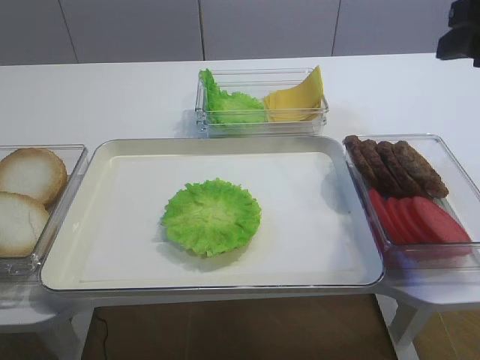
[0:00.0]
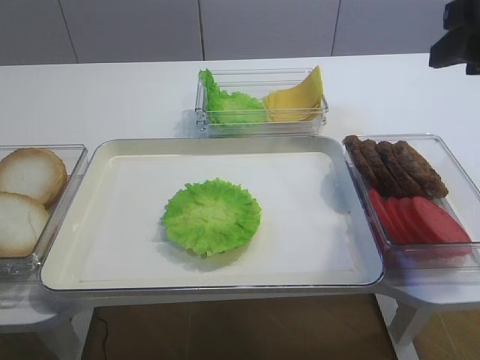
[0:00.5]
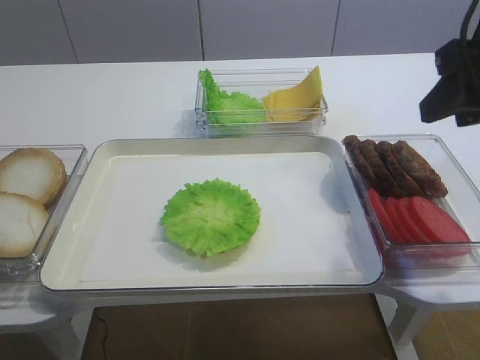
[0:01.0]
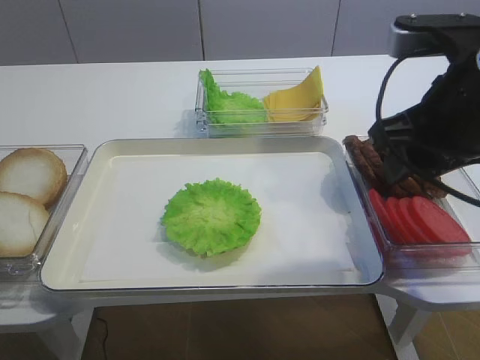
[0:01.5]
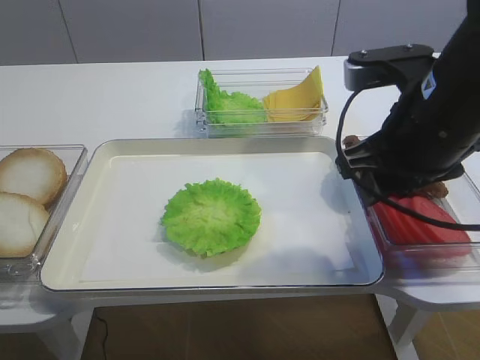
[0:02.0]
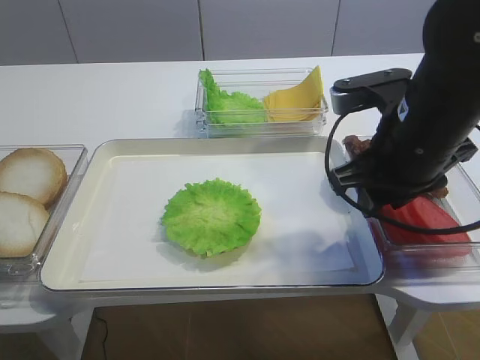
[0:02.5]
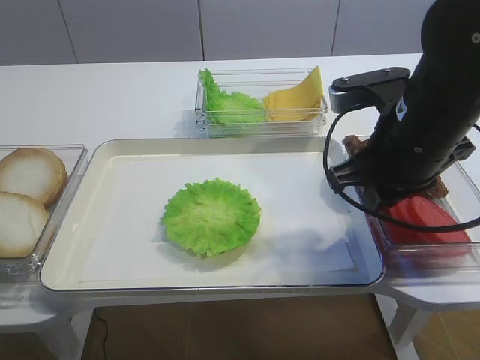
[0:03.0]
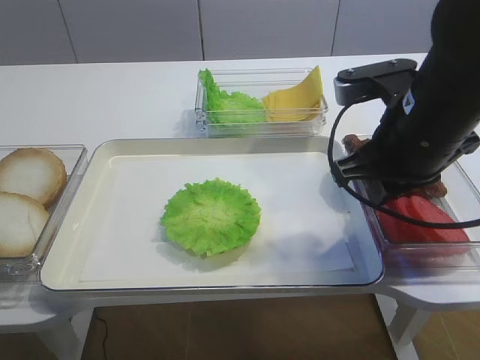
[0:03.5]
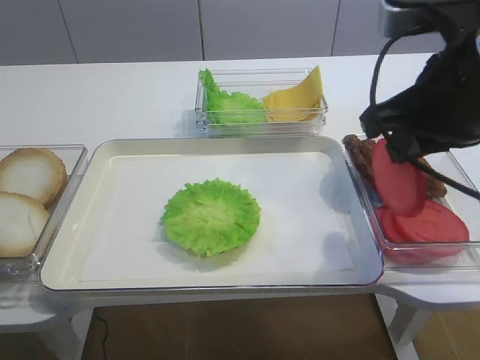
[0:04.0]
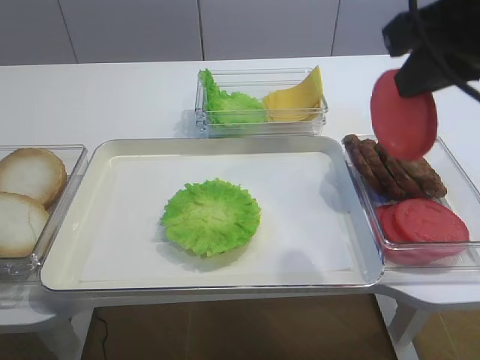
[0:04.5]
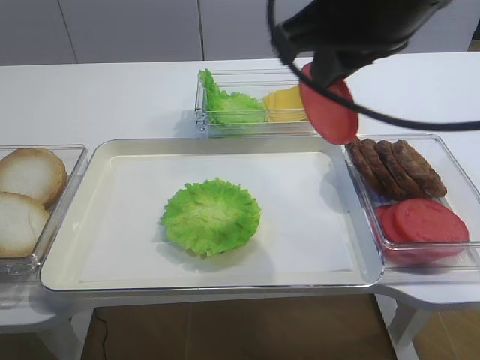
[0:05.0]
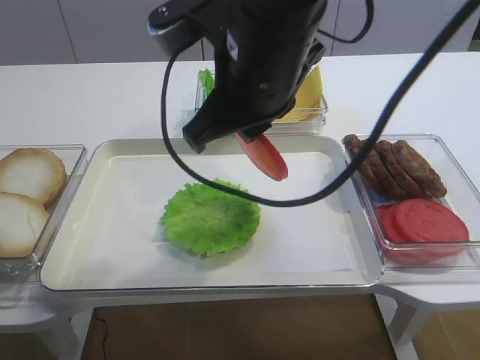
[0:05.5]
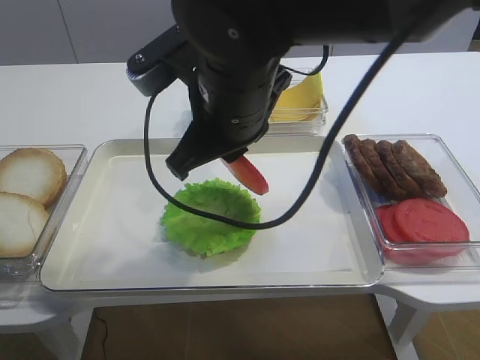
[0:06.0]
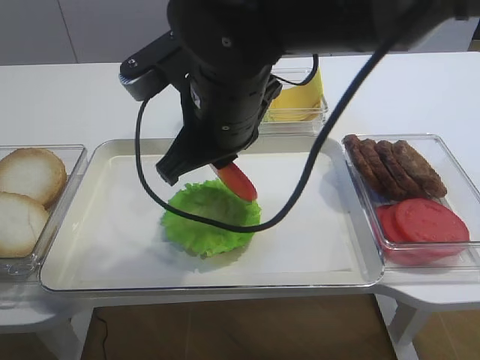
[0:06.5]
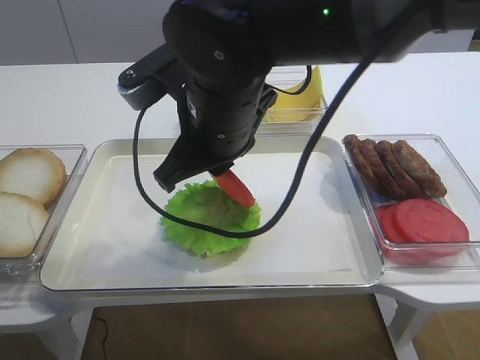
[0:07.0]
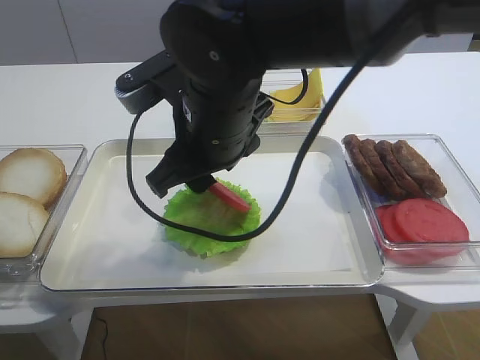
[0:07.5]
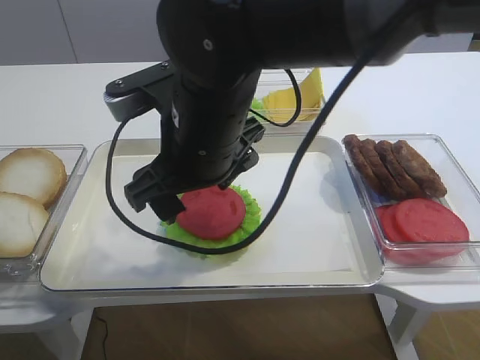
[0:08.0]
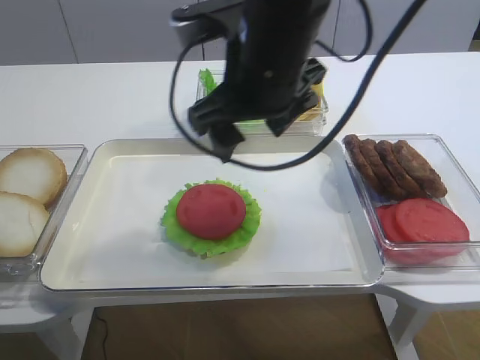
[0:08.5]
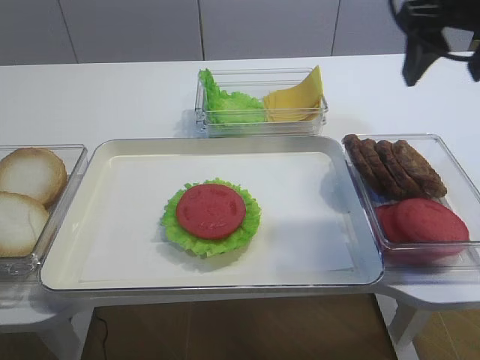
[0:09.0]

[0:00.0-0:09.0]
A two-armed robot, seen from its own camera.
Step, 0:00.0 to 0:03.5: Pick up the tomato slice with the right gripper.
Step, 0:04.5 to 0:07.5: Place the tomato slice on the lettuce leaf with the right gripper.
0:00.0 to 0:02.0: The right gripper shifts some 10 cm to the left and downward.
0:02.0 to 0:04.5: The right gripper is displaced upward by roughly 10 cm, and closes up.
0:04.5 to 0:07.0: The right gripper is displaced to the left and downward by some 20 cm.
0:07.0 to 0:09.0: The right gripper travels to the right and upward by approximately 25 cm, and opens.

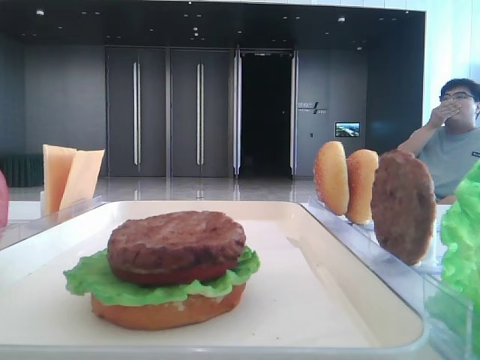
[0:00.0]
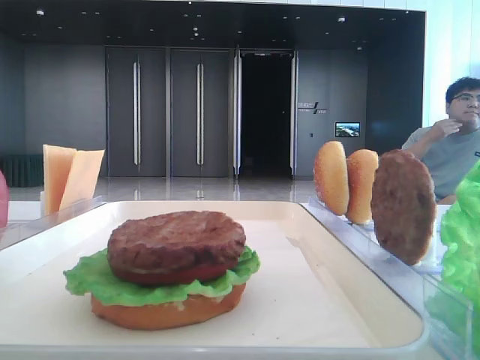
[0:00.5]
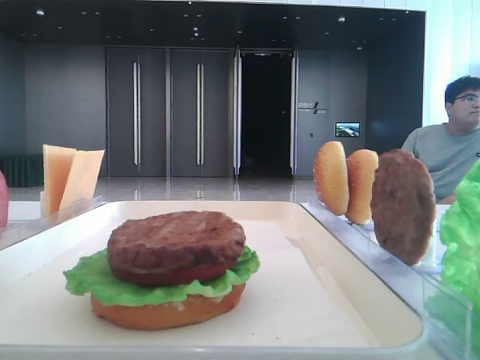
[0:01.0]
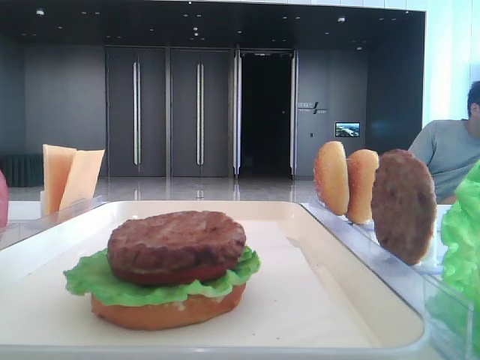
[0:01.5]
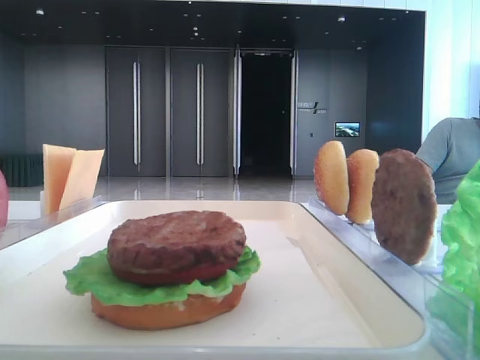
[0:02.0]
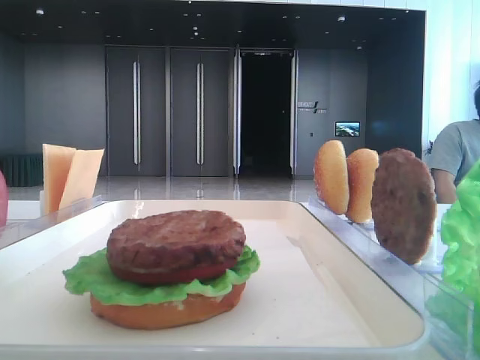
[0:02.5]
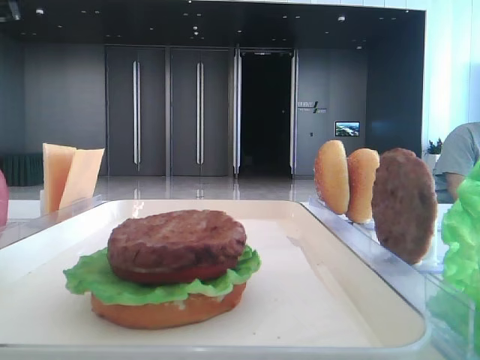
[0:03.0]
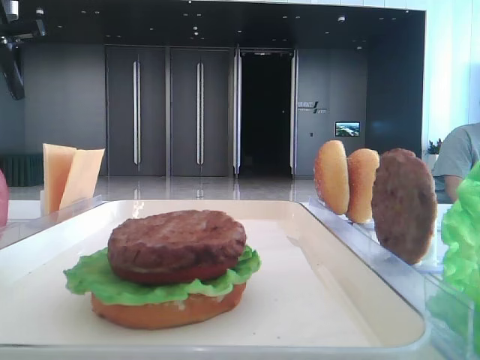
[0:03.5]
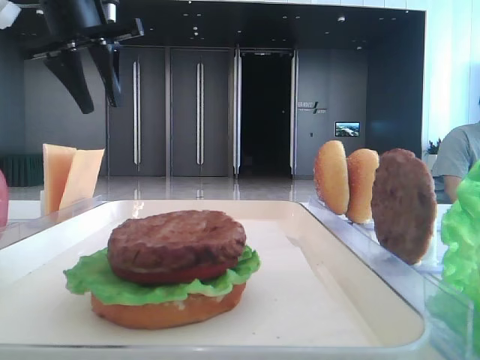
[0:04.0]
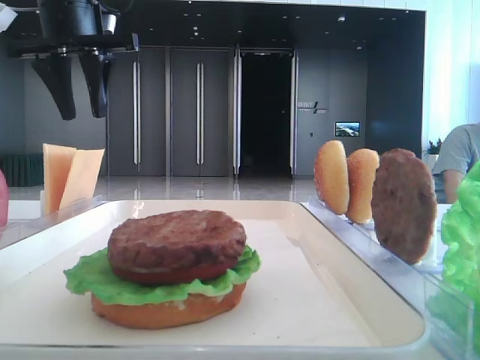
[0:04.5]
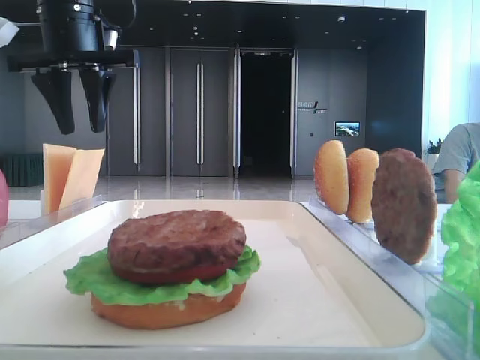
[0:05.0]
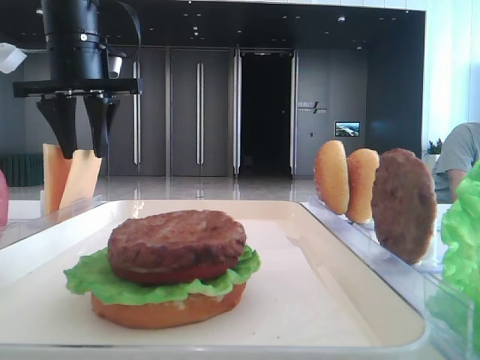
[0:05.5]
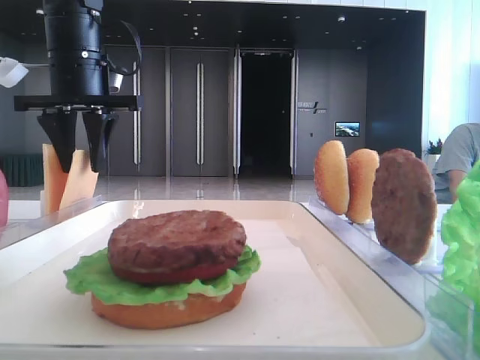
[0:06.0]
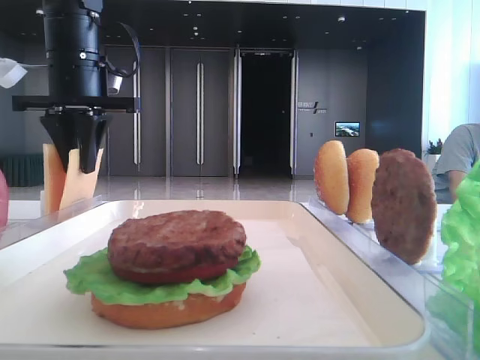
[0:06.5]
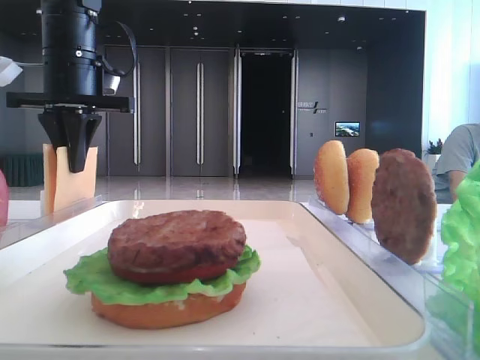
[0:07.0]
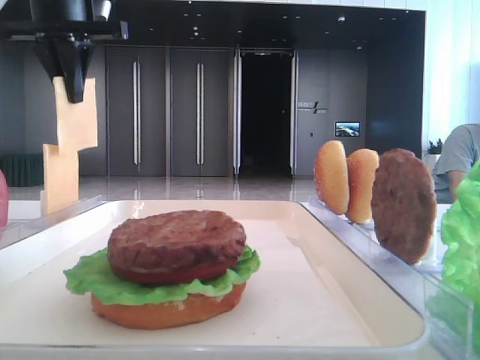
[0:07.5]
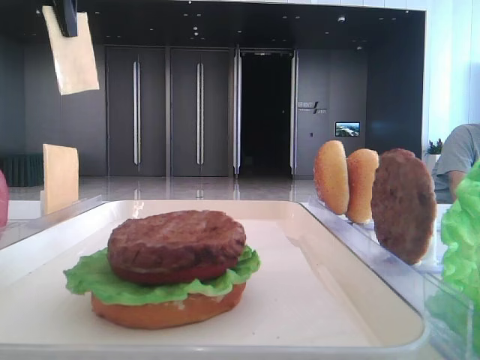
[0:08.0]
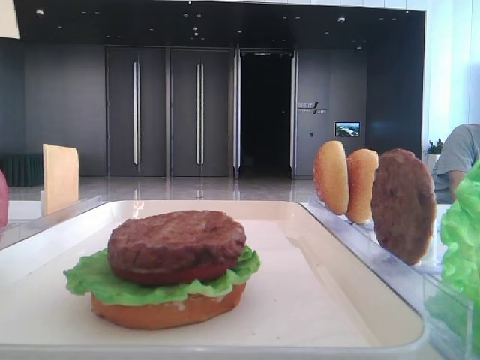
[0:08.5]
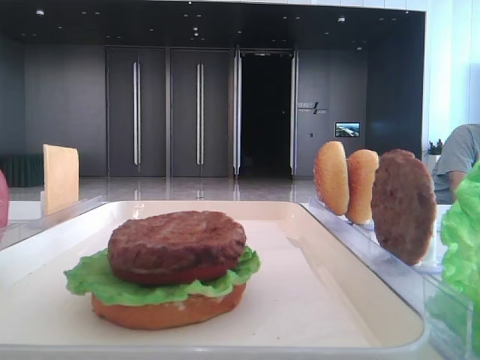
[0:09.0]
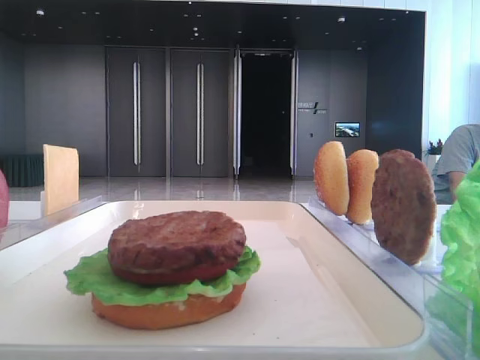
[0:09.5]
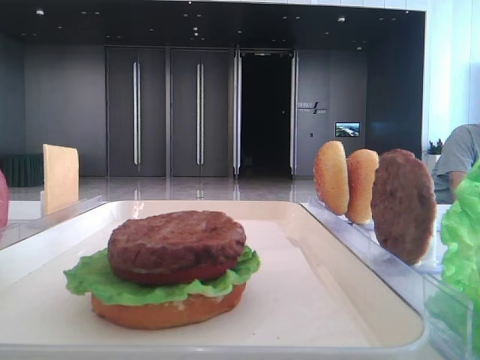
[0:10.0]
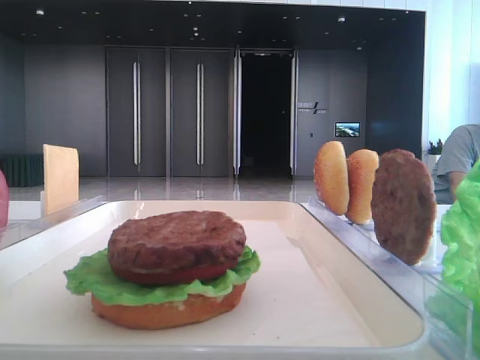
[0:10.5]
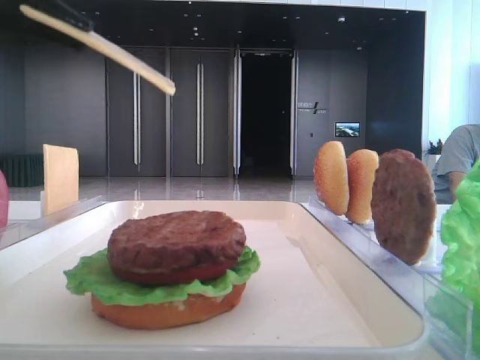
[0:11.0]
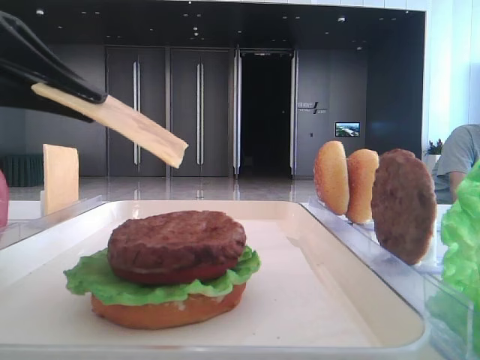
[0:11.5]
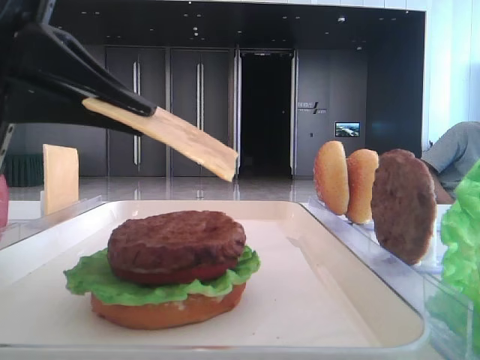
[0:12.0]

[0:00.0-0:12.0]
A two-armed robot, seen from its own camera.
Step, 0:00.0 to 0:06.5: Pick up the cheese slice with the left hand.
0:02.0 to 0:04.0: The left gripper moves forward, approximately 30 cm.
0:04.0 to 0:06.0: The left gripper shifts some 5 cm downward.
0:06.0 to 0:08.0: The left gripper heads upward and backward, covering roughly 15 cm, and closes its fingers.
0:08.0 to 0:10.0: The left gripper moves backward, about 20 cm.
0:10.0 to 0:12.0: The left gripper shifts about 15 cm downward.

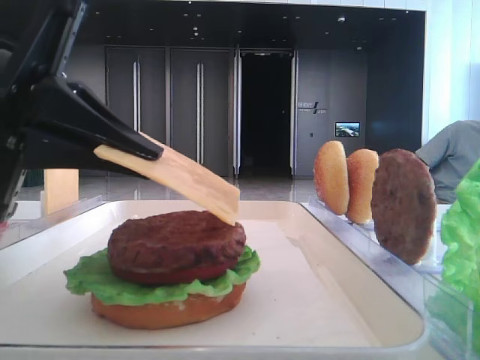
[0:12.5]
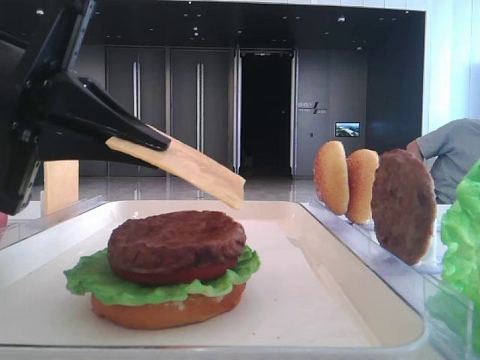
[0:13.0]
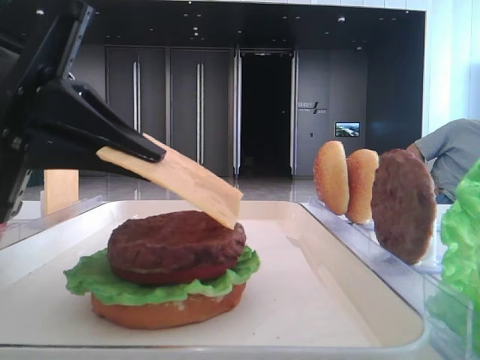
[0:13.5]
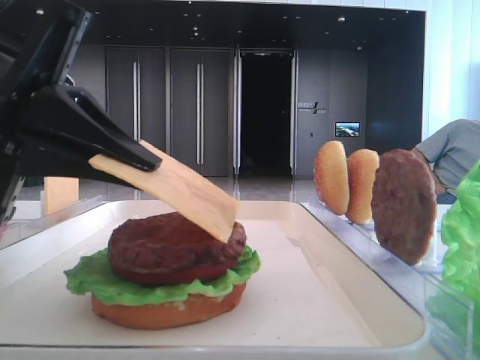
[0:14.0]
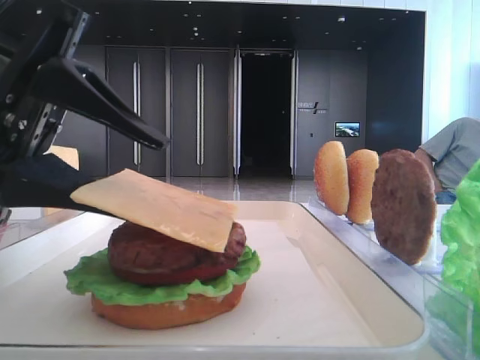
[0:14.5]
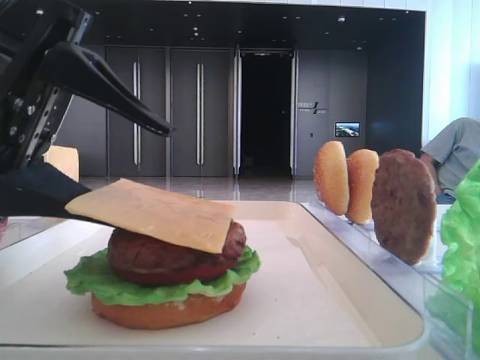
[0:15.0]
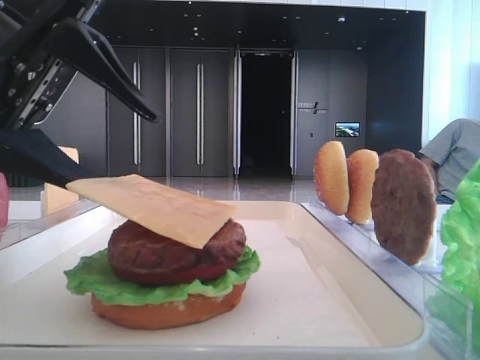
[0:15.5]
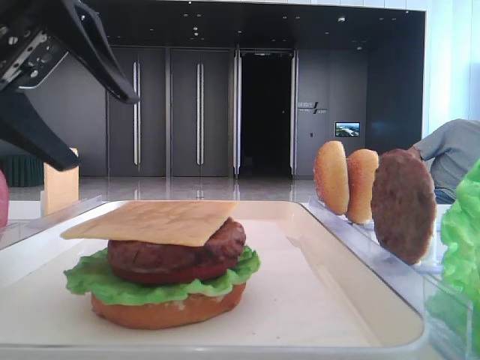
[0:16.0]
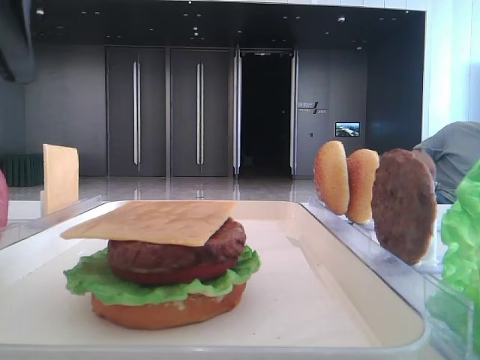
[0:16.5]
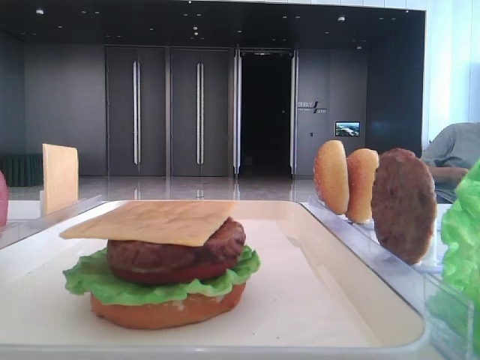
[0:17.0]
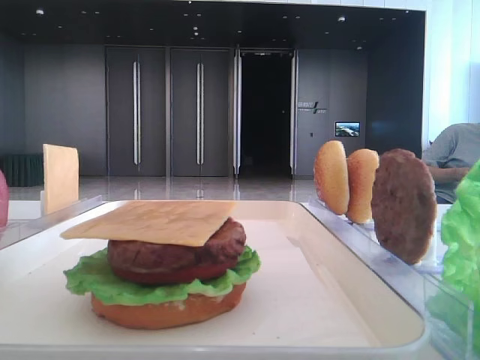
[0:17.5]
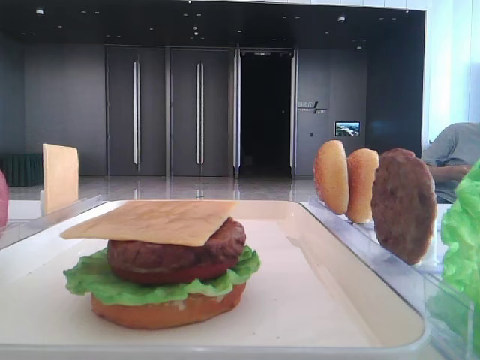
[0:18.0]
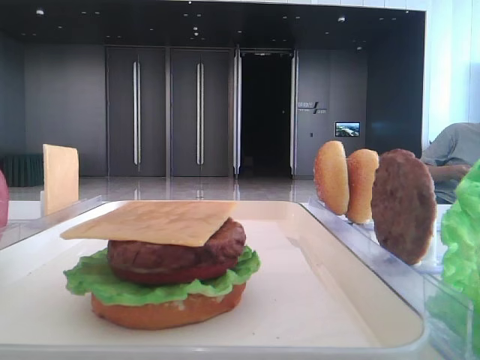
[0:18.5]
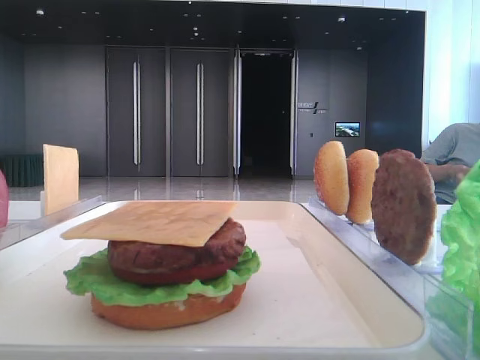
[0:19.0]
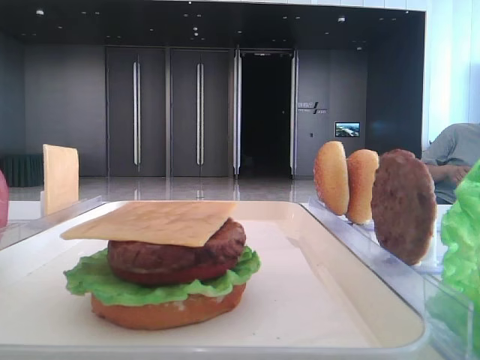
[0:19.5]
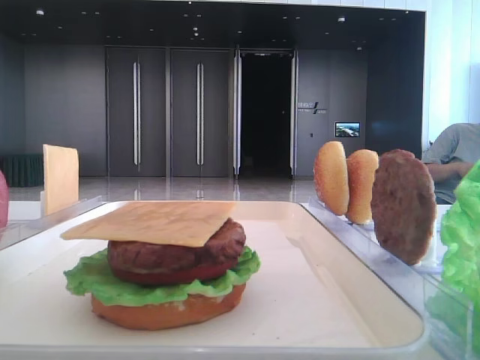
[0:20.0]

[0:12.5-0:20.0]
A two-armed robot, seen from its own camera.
Step, 0:12.5 to 0:15.5: Place the cheese slice on the patty with the left hand.
0:12.5 to 0:14.5: The left gripper opens.
0:14.5 to 0:16.5: The left gripper goes roughly 10 cm upward.
